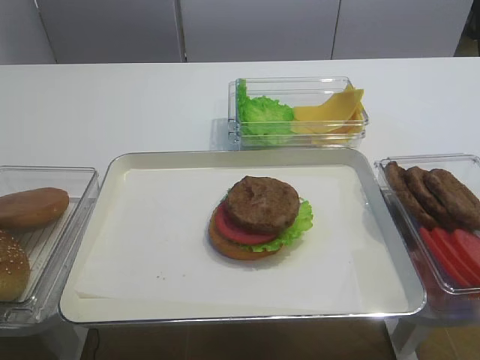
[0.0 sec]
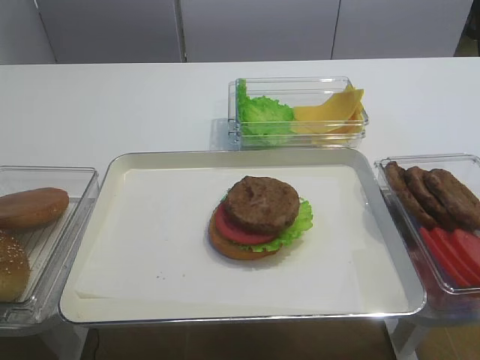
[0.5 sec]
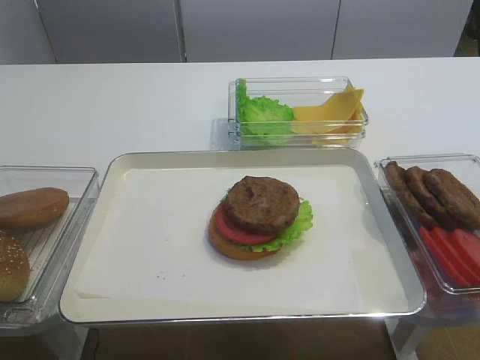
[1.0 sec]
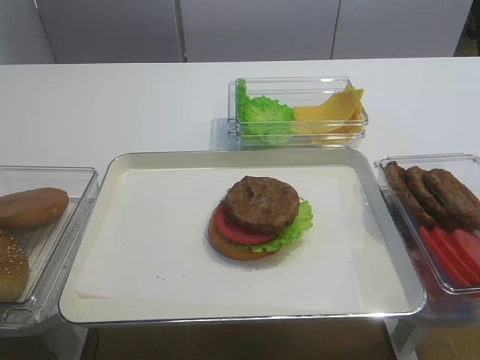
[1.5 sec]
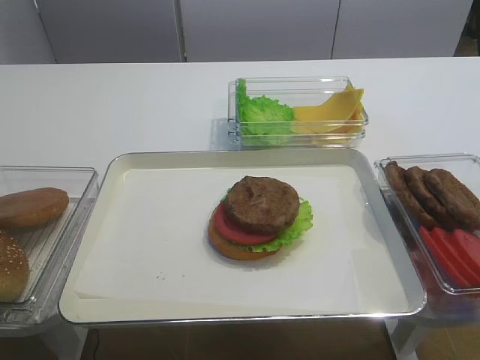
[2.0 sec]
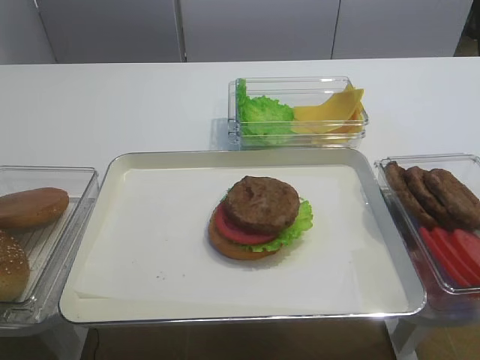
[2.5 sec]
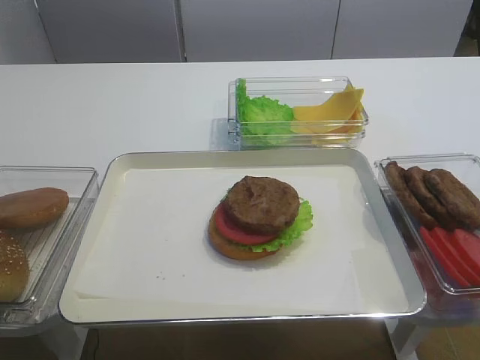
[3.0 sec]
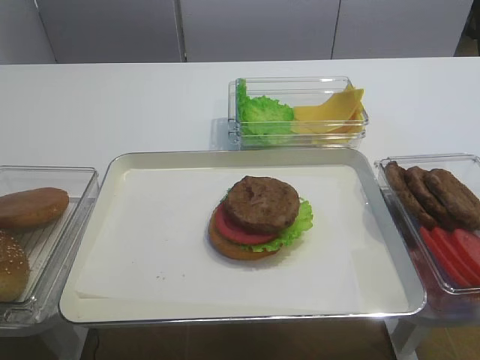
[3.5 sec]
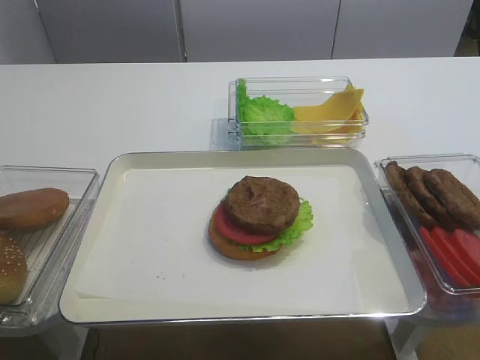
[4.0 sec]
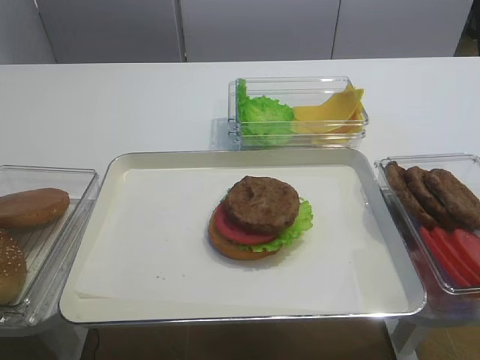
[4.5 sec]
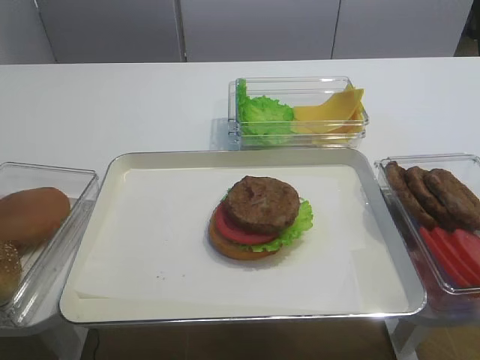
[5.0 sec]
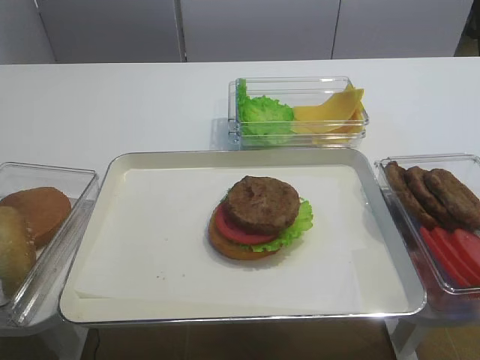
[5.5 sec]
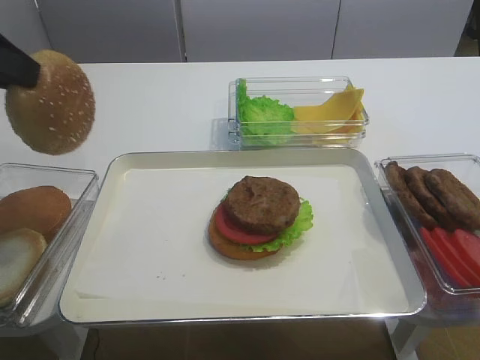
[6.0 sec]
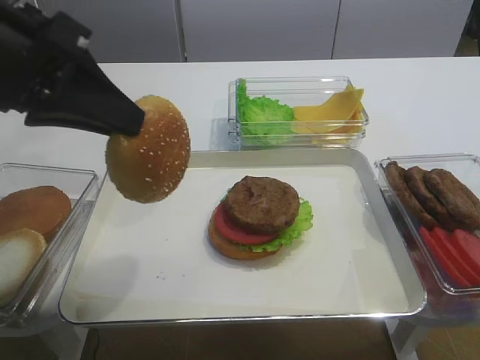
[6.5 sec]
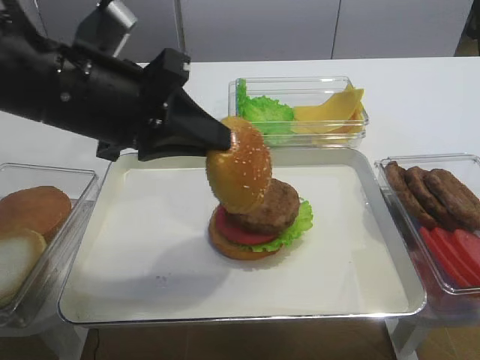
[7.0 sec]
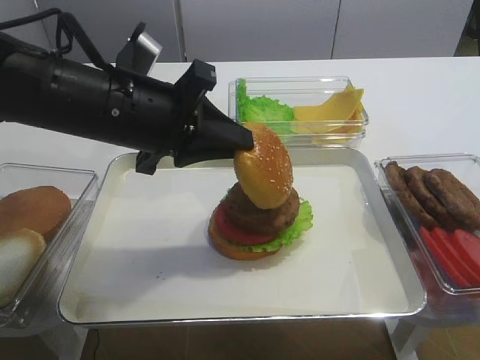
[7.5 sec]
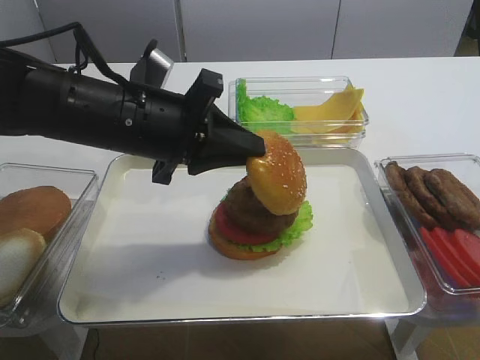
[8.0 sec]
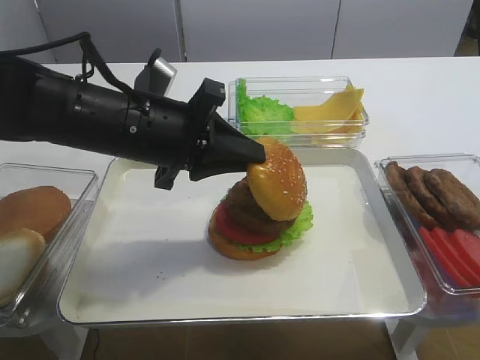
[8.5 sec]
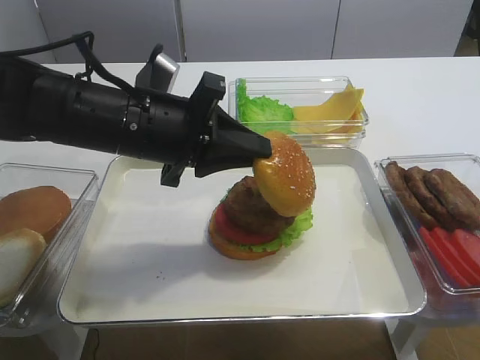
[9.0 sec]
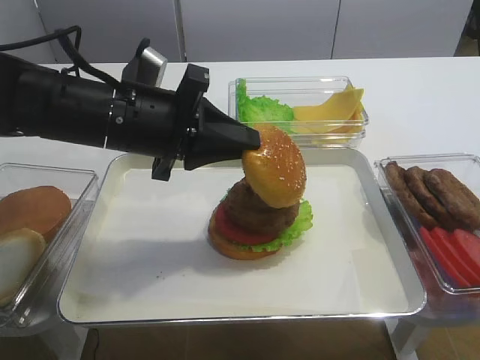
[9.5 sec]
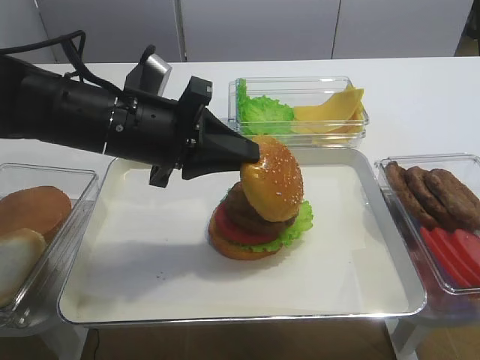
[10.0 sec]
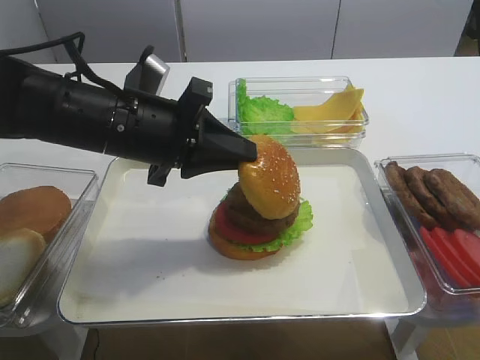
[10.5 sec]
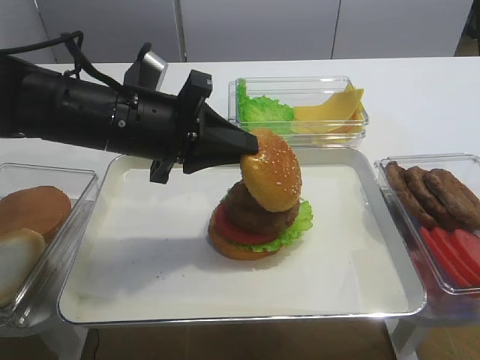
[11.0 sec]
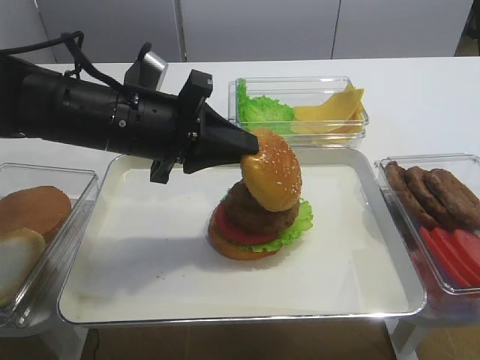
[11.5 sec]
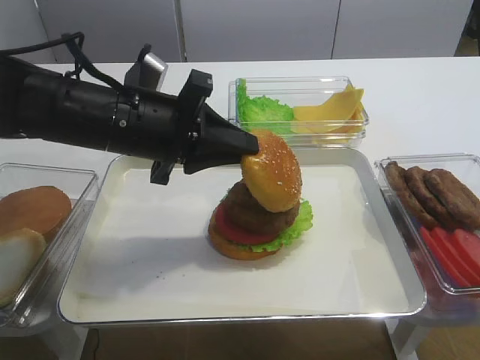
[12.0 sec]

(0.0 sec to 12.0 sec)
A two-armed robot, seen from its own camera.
Step, 0.0 sec - 5.5 sec: Pick up the hamburger lid with the left gripper.
4.0 sec - 6.0 sec: The left gripper goes about 15 cm upward and to the right, and closes up.
6.0 sec - 8.0 sec: The left gripper shifts about 20 cm to the right and downward.
8.0 sec - 10.0 sec: Both grippers stay put.
10.0 sec - 12.0 sec: The two grippers keep their place.

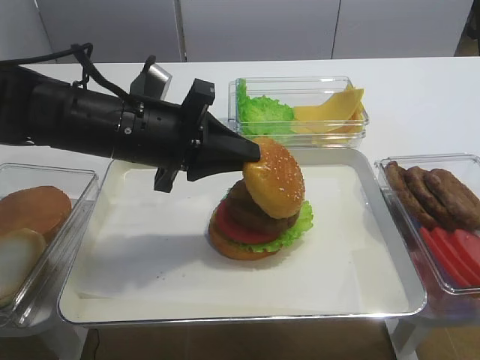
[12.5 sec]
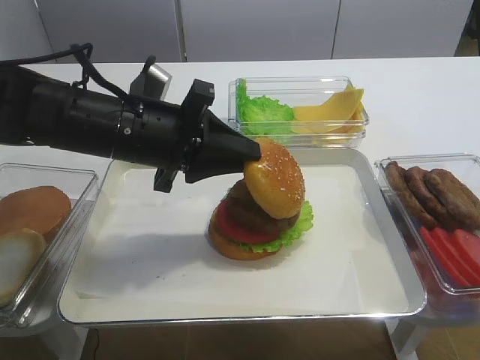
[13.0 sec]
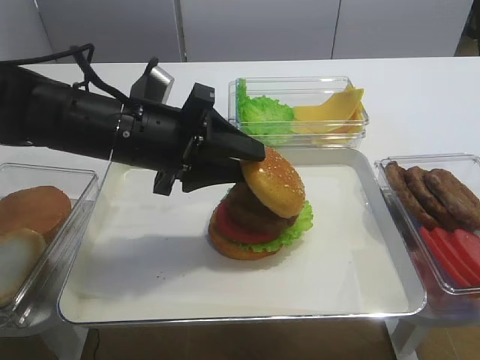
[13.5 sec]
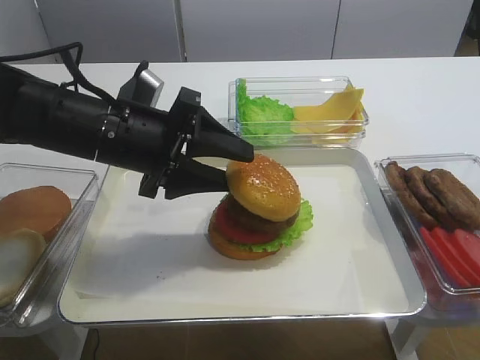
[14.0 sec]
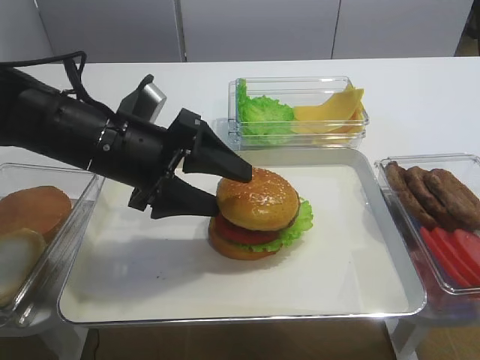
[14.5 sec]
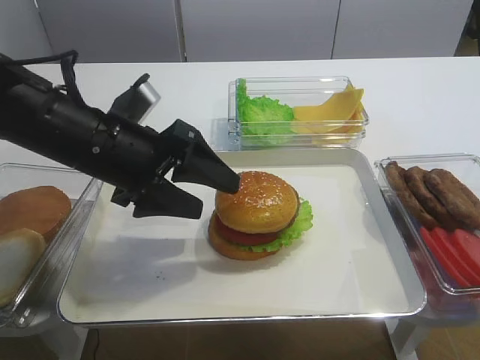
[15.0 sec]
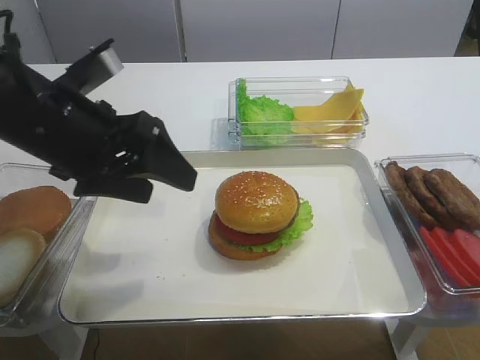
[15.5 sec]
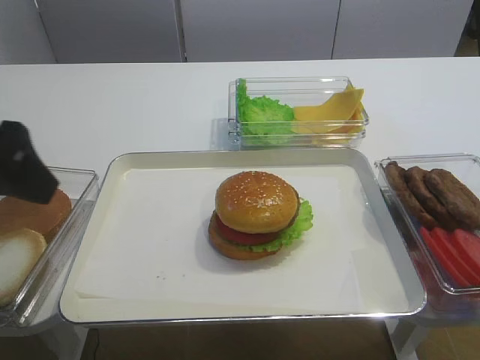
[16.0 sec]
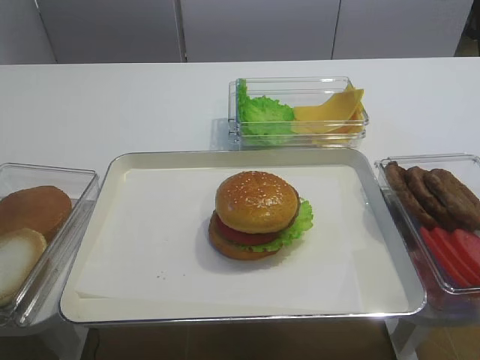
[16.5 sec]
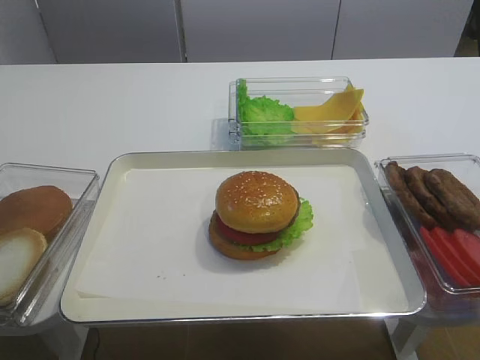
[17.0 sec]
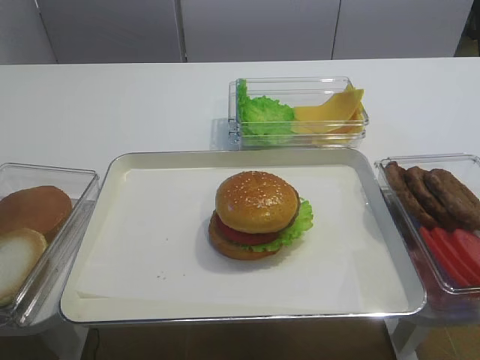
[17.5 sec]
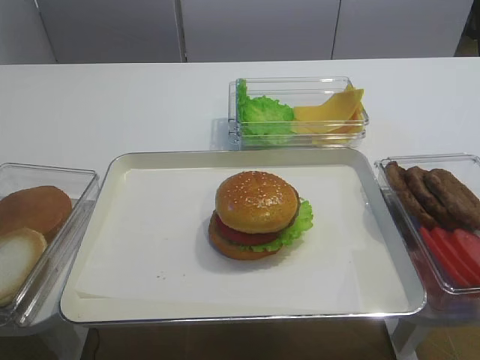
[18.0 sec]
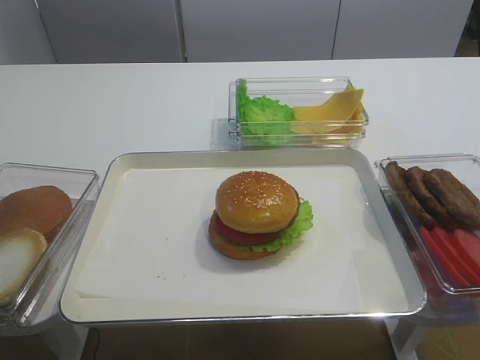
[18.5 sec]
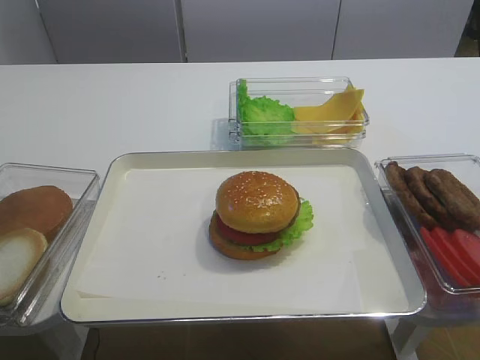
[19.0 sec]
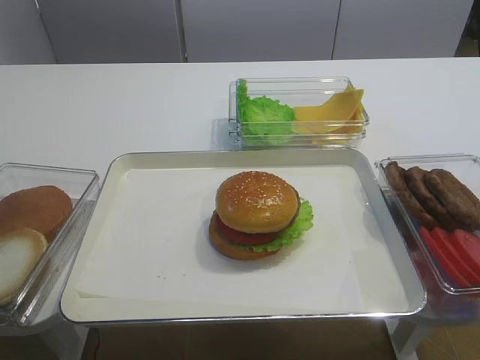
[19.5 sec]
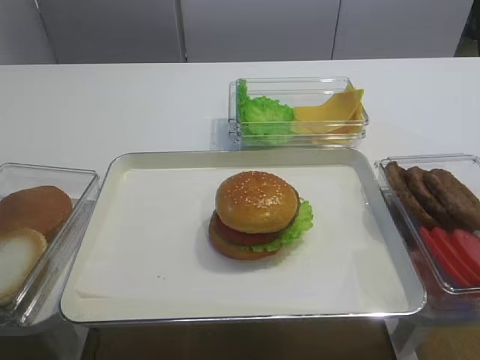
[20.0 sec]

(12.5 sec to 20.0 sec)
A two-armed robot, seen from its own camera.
Step, 12.5 sec - 15.0 sec: Place the hamburger lid on the cutlet slice with the left gripper.
12.5 sec - 14.5 sec: The left gripper opens up.
14.5 sec - 16.5 sec: The left gripper is displaced backward, upward and to the left by roughly 30 cm.

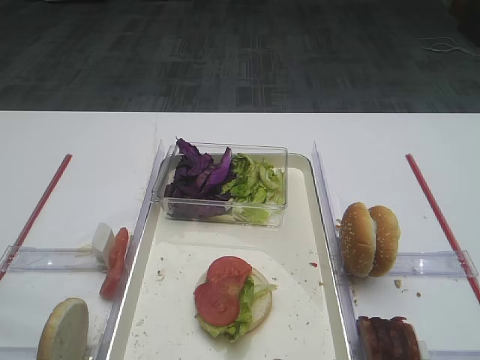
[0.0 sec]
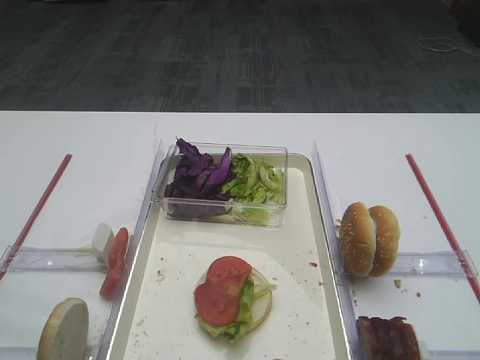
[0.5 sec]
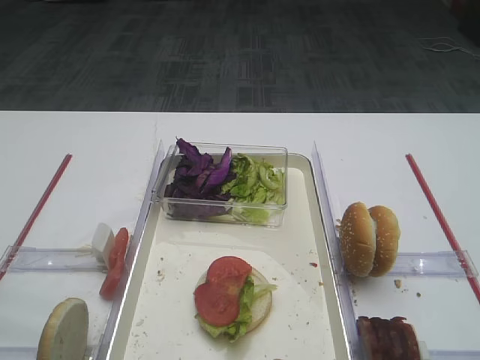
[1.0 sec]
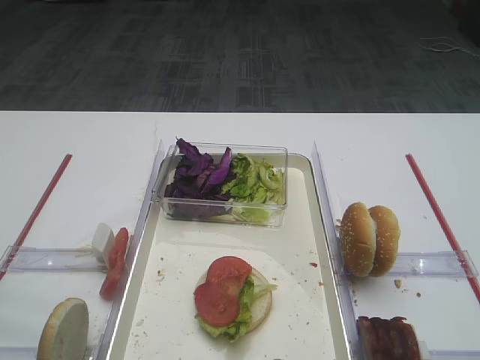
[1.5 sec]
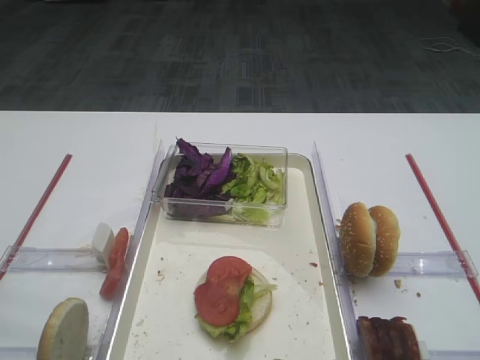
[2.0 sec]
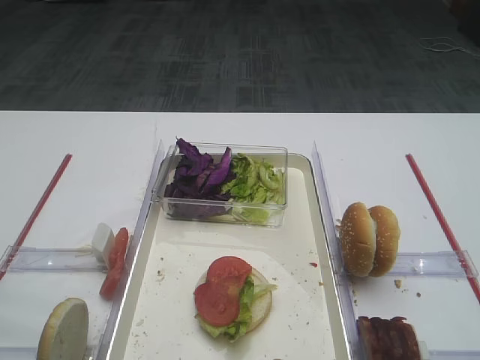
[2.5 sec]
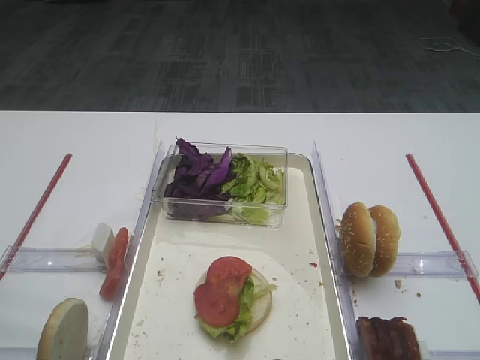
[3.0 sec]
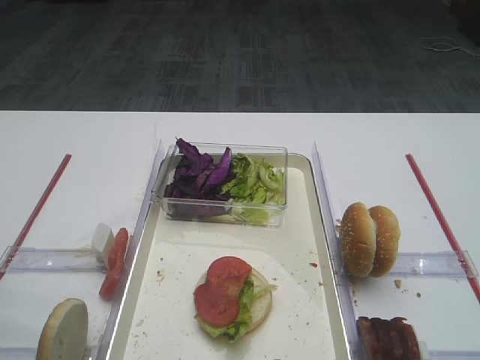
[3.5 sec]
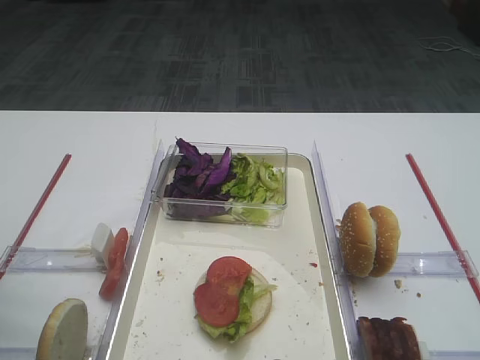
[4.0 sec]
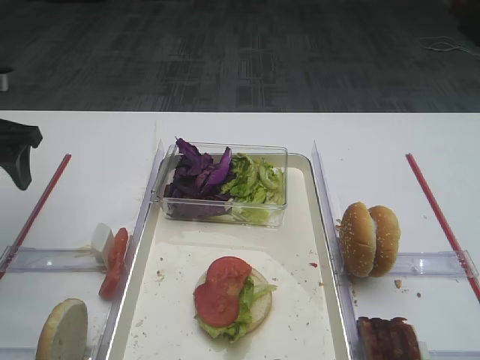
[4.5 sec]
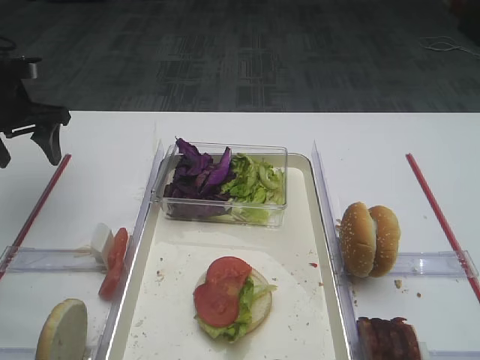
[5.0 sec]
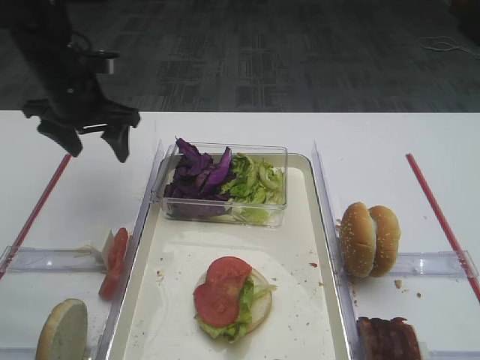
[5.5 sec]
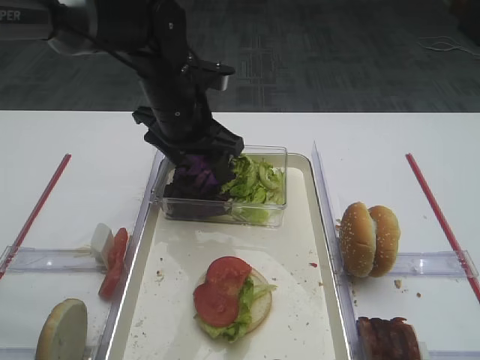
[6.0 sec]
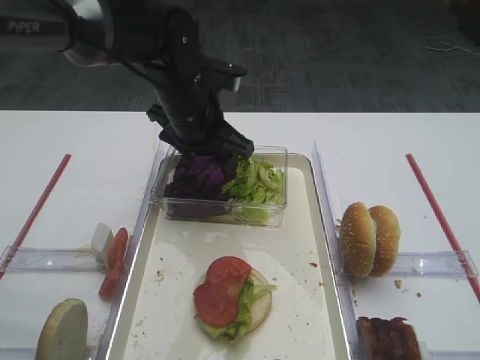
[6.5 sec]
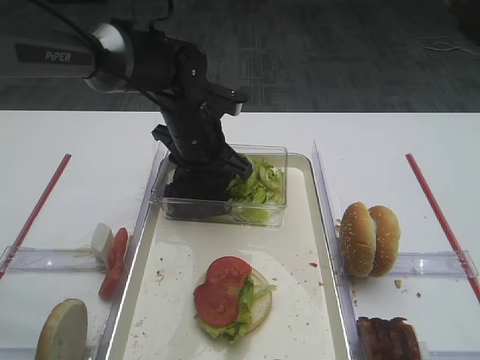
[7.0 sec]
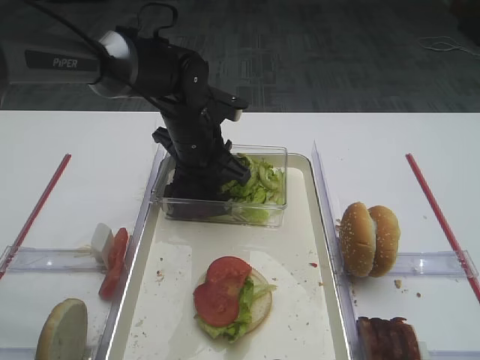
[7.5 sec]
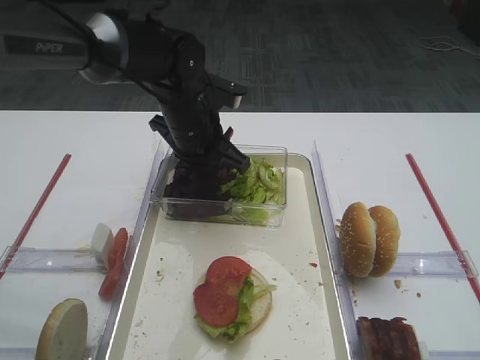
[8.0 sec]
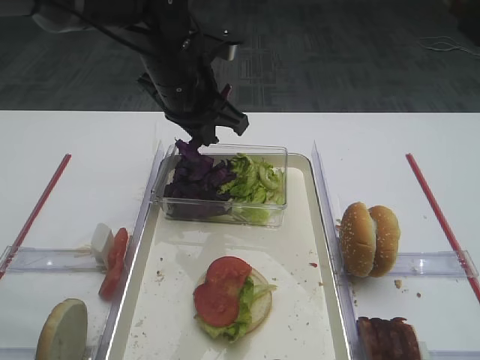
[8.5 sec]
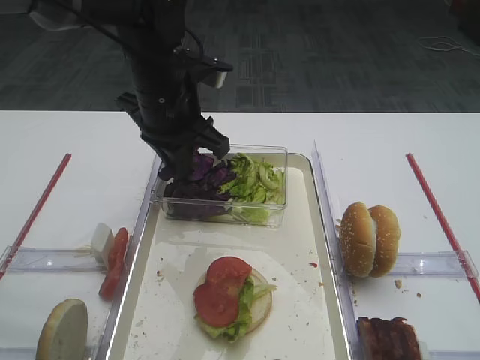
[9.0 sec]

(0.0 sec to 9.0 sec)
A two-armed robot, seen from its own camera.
Step, 0.0 sec - 8.5 sec: Pick up the purple cabbage with the left gripper.
2.0 sec - 4.5 sec: The left gripper travels forward by some 35 cm.
4.5 sec - 7.0 sec: The left gripper is displaced to the right by about 25 cm, and closes up.
7.0 sec - 9.0 sec: The left gripper heads upward, covering roughly 10 cm, and closes up.
